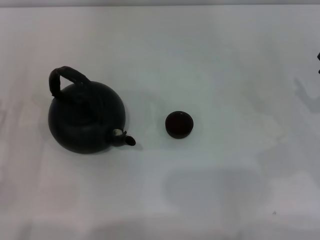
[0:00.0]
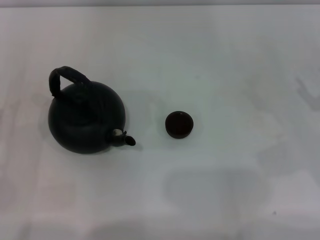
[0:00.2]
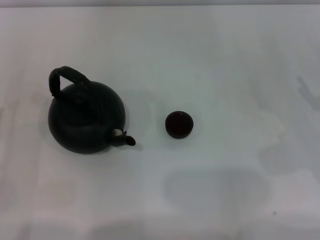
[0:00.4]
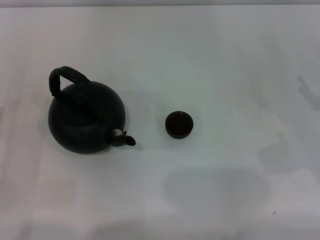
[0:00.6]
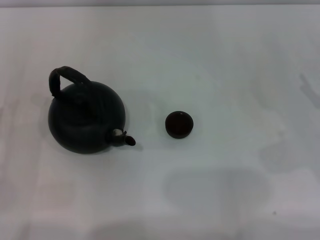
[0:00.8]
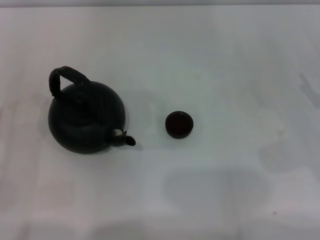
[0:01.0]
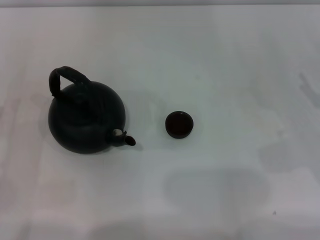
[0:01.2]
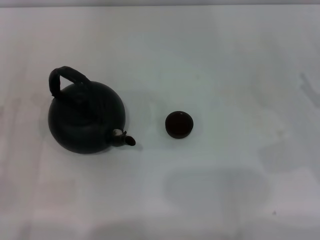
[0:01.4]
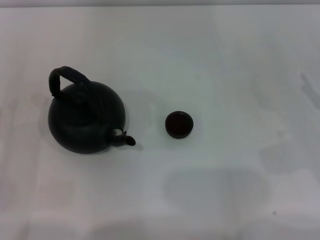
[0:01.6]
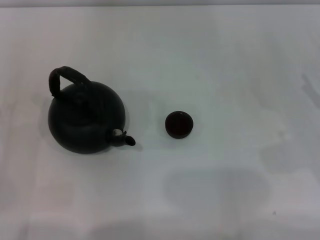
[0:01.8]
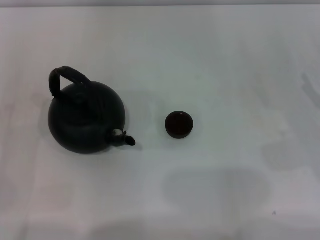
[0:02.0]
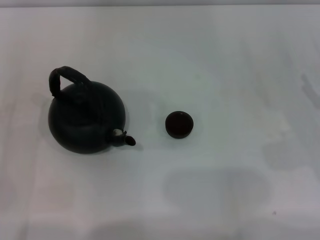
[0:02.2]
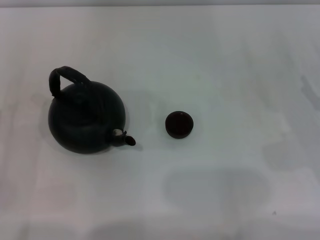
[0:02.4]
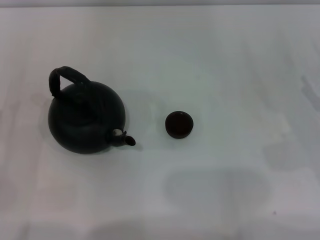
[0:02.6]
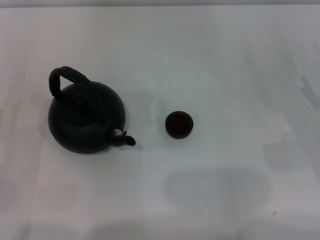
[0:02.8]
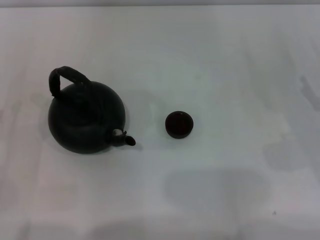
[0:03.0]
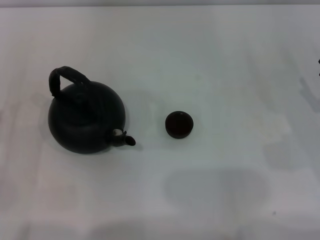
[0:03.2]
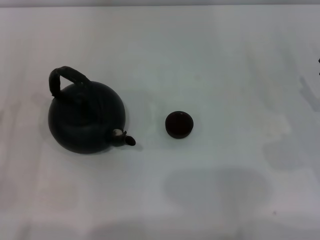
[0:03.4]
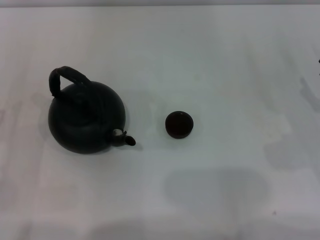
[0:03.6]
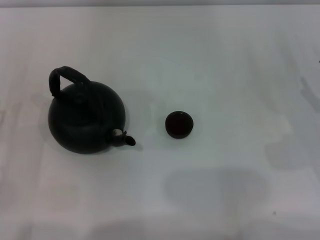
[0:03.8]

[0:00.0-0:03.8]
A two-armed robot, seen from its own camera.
Task of the whole recording: Grasp the handle of the teapot with one hand and pour tea into the teacup.
0:00.0 to 0:01.2: The two grippers keep their place.
0:02.6 to 0:03.8: Both grippers stay about where they are.

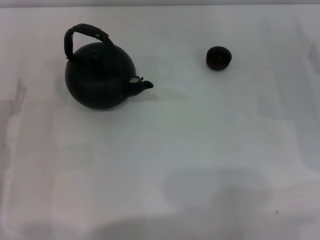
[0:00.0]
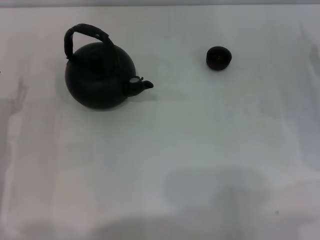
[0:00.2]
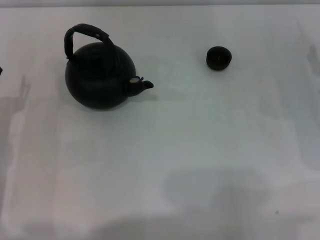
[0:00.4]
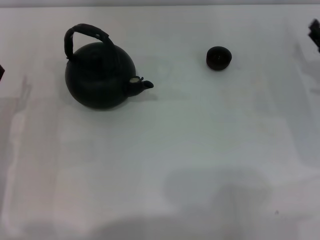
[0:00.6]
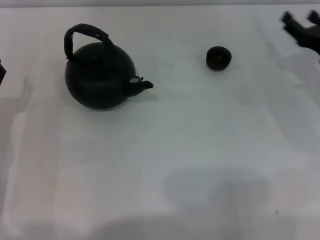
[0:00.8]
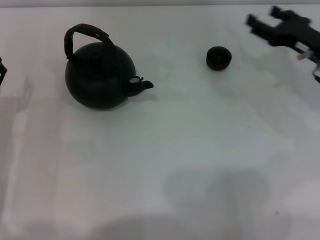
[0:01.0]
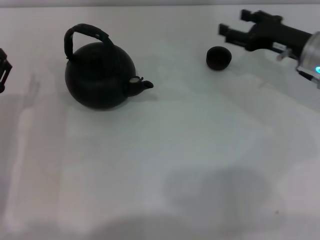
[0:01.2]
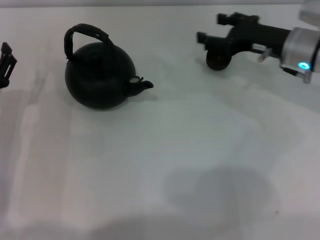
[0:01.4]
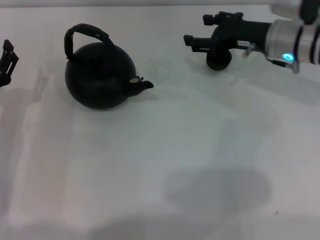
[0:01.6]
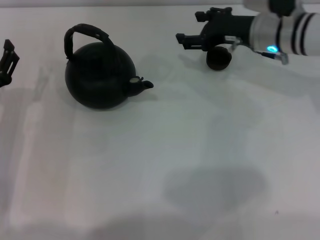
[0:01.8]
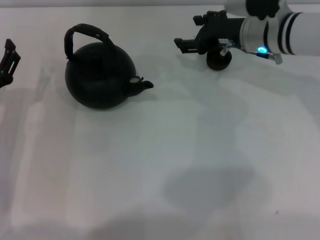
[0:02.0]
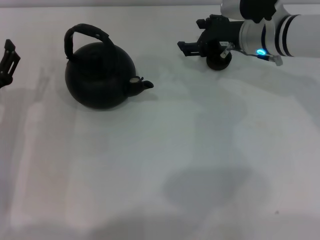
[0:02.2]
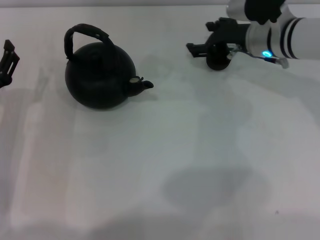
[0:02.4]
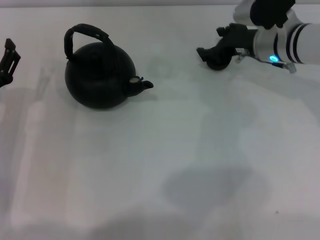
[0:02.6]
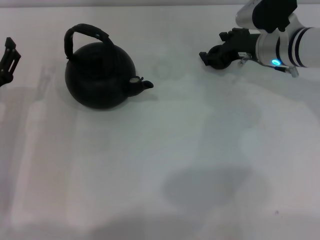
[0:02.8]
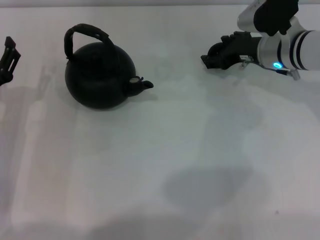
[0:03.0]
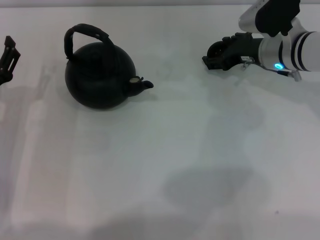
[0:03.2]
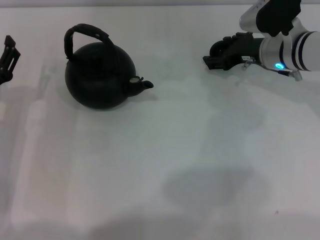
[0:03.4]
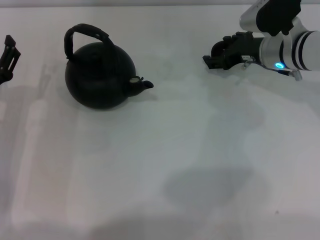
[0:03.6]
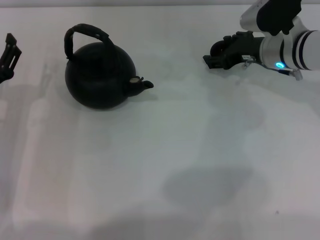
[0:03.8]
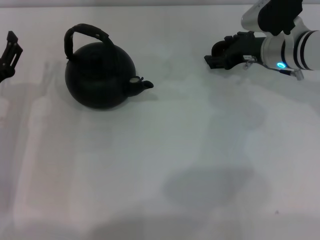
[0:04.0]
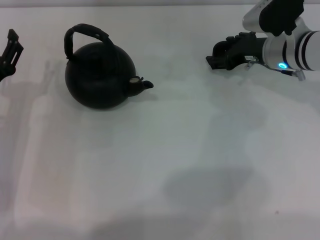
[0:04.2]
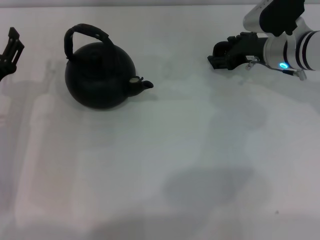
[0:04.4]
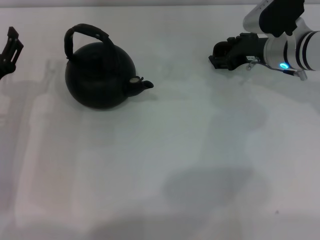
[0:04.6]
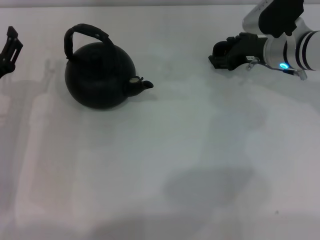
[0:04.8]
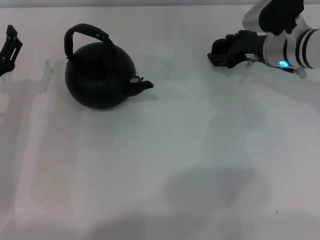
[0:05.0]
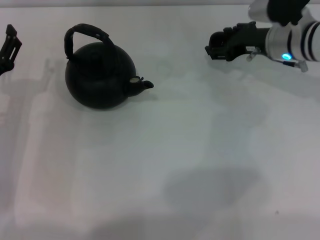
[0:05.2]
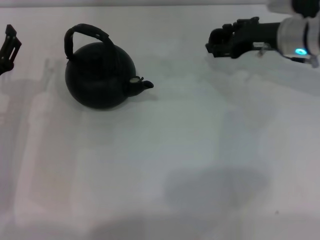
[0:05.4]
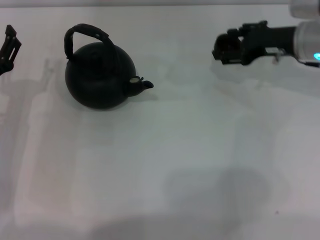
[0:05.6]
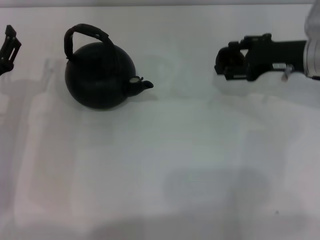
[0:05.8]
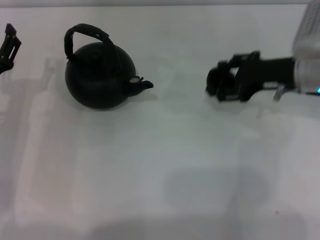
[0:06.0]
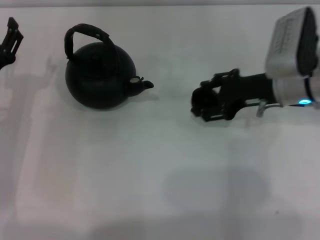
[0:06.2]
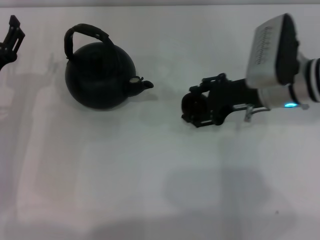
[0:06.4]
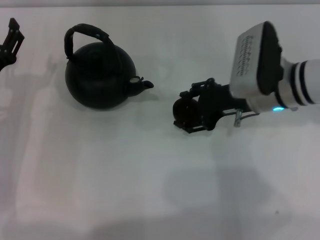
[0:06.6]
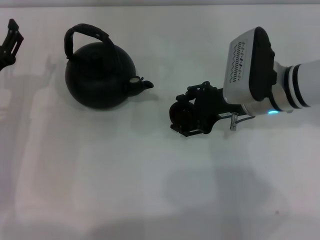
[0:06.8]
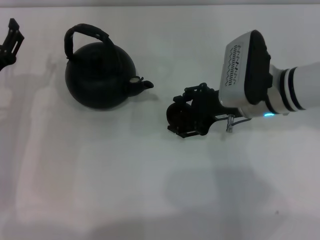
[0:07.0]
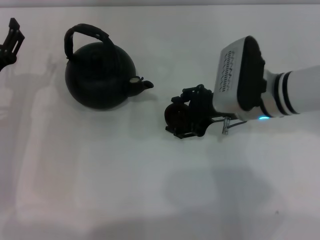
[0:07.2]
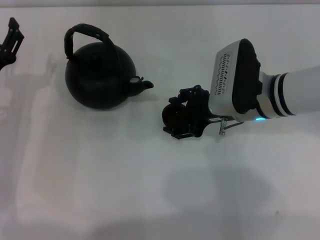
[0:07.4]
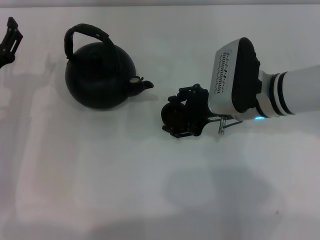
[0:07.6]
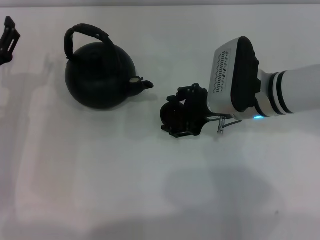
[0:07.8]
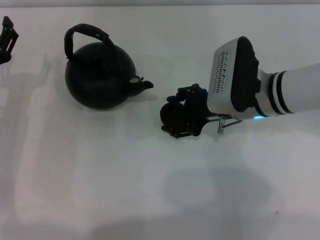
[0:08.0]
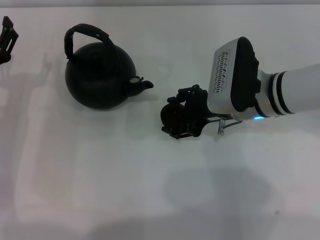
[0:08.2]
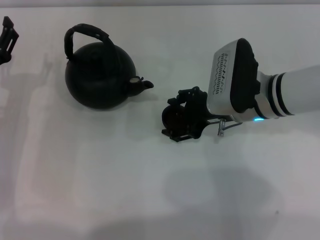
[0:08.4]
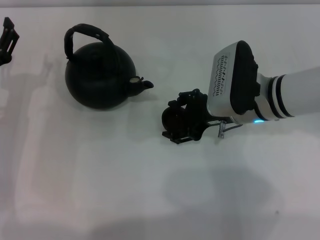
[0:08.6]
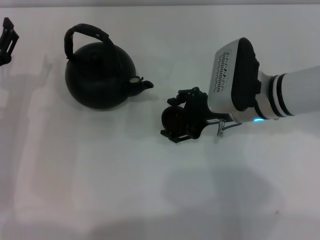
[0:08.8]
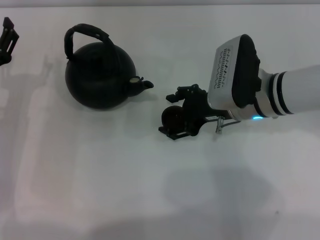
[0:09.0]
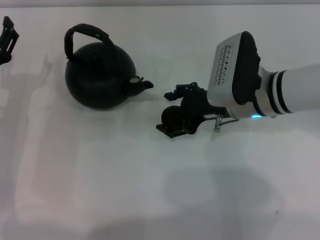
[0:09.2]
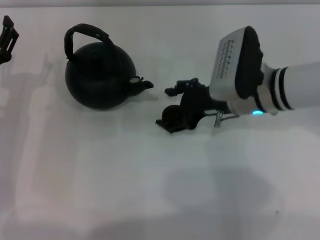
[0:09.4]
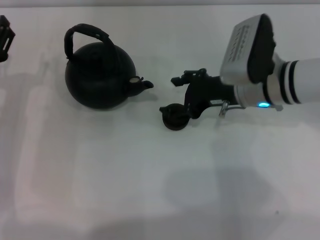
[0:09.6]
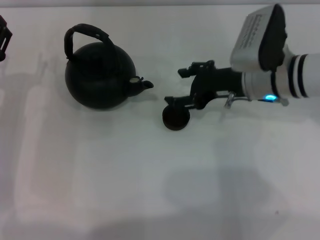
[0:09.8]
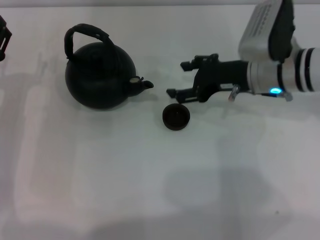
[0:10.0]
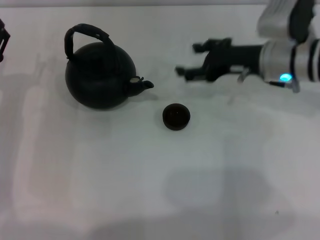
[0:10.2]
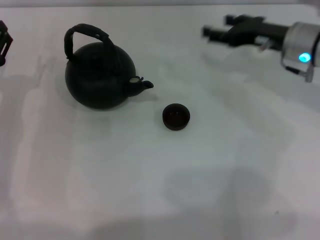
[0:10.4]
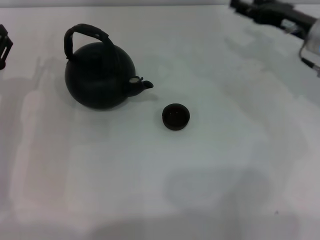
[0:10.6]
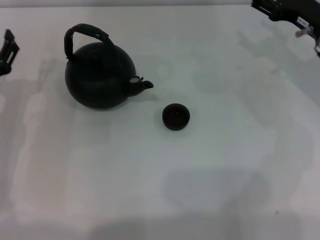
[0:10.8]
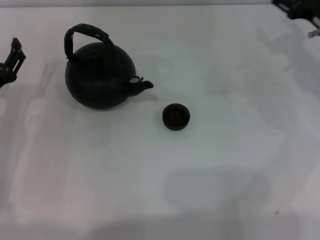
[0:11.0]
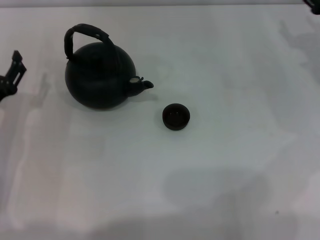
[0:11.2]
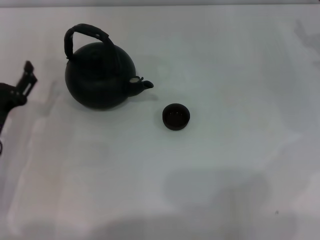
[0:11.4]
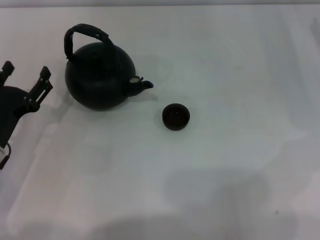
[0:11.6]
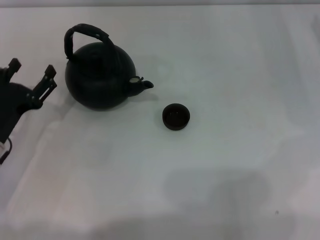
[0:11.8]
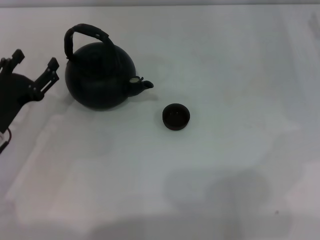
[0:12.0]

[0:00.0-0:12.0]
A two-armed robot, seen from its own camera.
Task of the whole recording: Grasp the handle of the teapot with one hand and pour tea into the teacup.
Step, 0:00.0 to 0:05.4: Pick up the teacup with the right gripper.
Step, 0:05.6 to 0:10.0: Place the teacup in the center of view with the right gripper.
0:00.0 to 0:01.6: The right gripper travels to the left, forward and upward by approximately 15 cm.
0:03.0 to 0:04.4: The two grippers keep their place.
0:04.4 to 0:06.0: The right gripper travels backward by some 5 cm.
0:06.0 to 0:07.6: The right gripper shifts approximately 10 cm to the left.
0:07.6 to 0:09.0: The two grippers keep their place.
0:09.0 to 0:10.4: The right gripper is displaced to the right and forward by roughly 10 cm.
0:10.4 to 0:12.0: The right gripper shifts roughly 10 cm to the right.

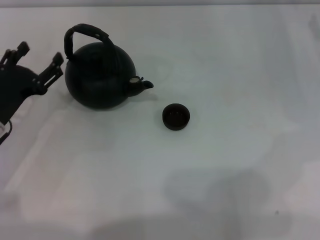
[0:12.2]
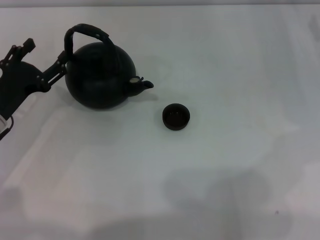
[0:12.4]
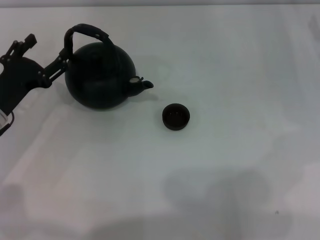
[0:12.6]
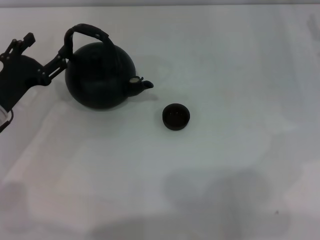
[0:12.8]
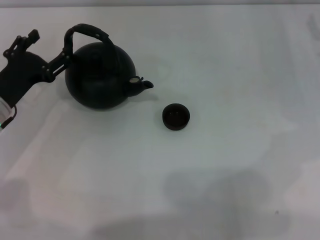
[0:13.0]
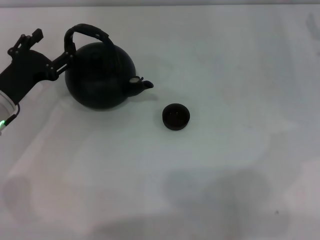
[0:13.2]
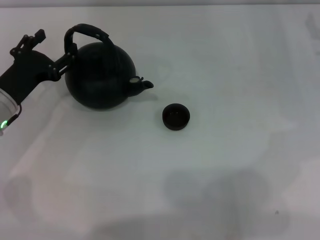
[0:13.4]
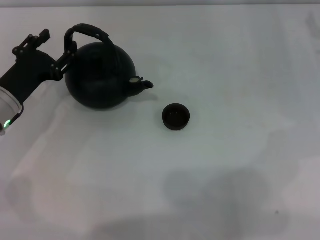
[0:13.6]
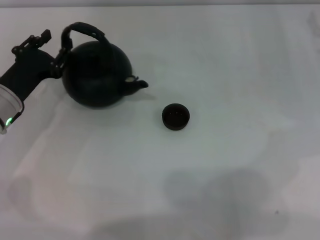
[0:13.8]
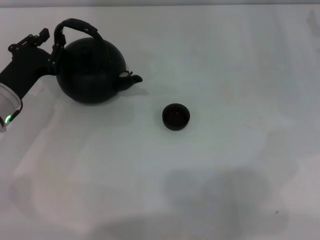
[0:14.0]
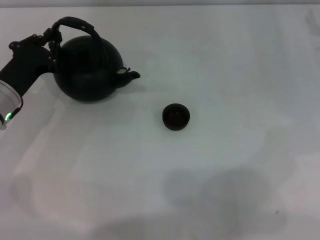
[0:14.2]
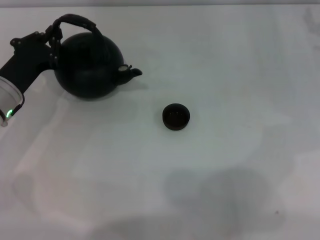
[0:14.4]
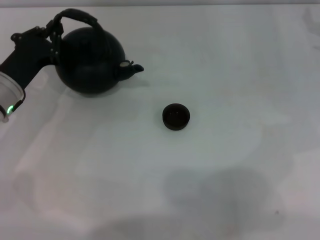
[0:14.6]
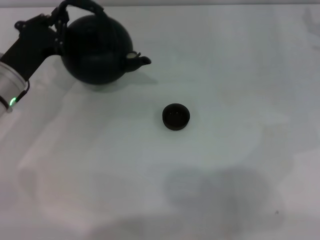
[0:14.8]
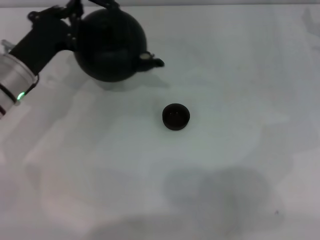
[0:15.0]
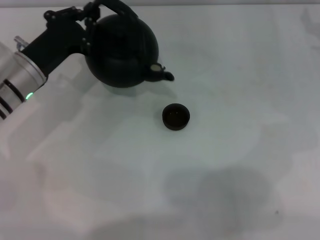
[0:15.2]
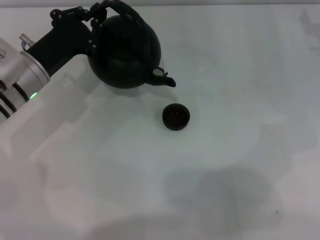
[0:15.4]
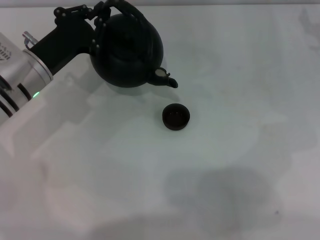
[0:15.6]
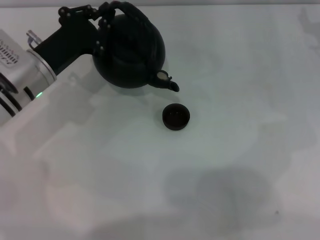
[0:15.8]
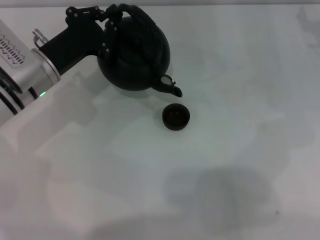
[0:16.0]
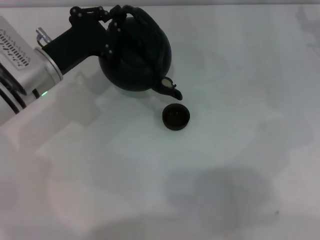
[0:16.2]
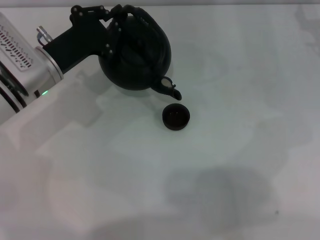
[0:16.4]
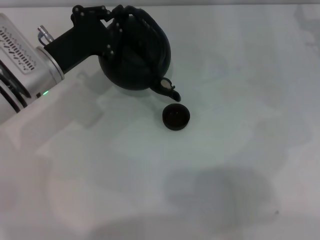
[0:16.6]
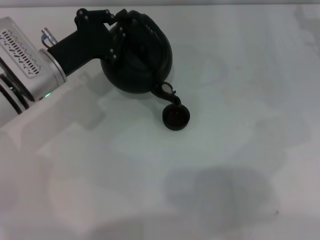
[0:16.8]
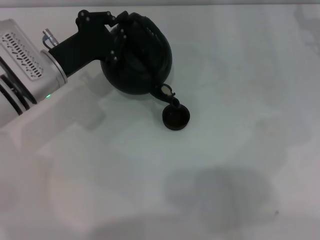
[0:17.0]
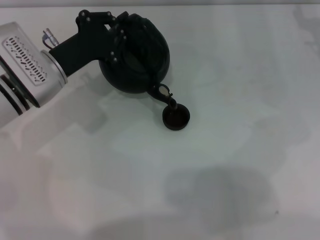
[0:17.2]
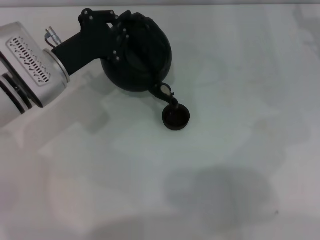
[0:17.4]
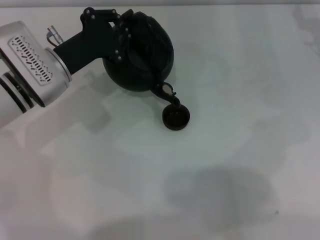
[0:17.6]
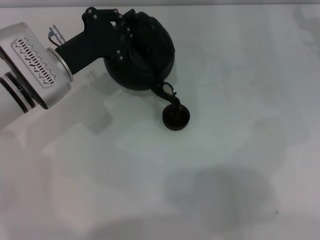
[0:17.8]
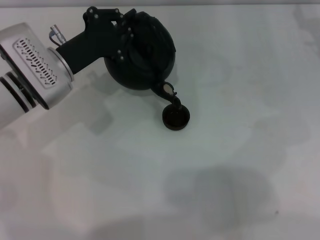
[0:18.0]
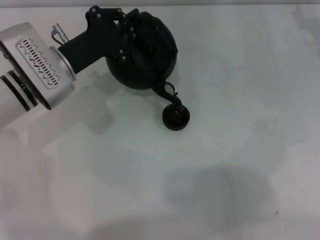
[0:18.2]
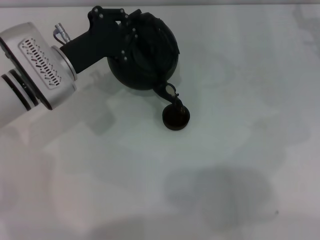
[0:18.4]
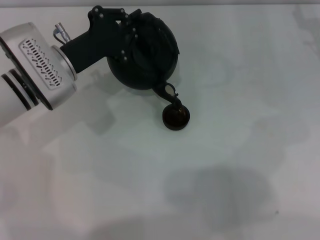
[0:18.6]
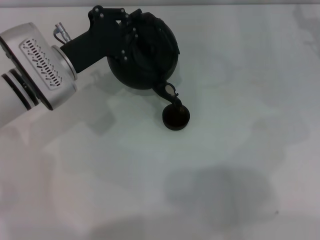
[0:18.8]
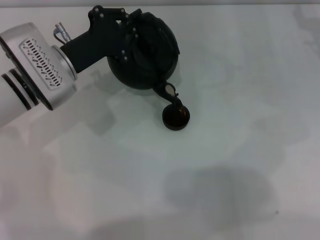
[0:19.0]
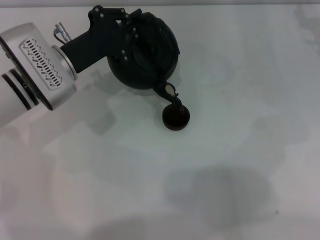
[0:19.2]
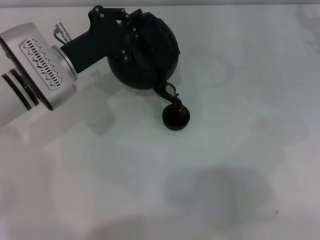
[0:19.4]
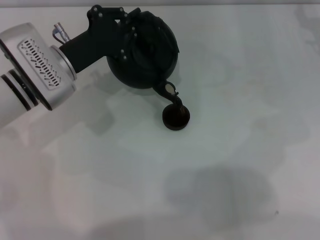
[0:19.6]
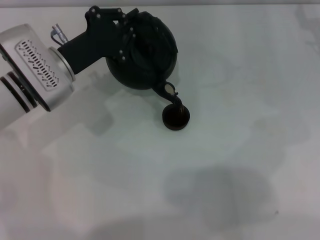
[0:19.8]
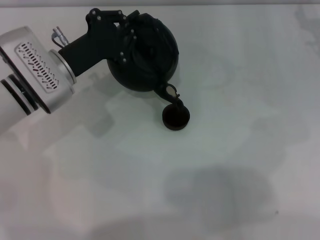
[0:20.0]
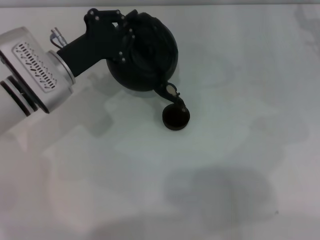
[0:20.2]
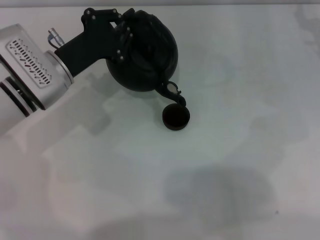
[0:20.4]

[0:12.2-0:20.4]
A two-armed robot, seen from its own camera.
Task of the whole recording: Grasp the handle of the teapot with one hand and pour tea into the teacup.
Step, 0:12.2 to 0:14.8: Pick up the teapot with the left gripper.
0:12.2 to 0:13.8: The grippers move only a little.
0:13.8 to 0:15.4: The left gripper shifts by roughly 5 cm, and closes.
0:17.2 to 0:20.4: The grippers make only small movements.
